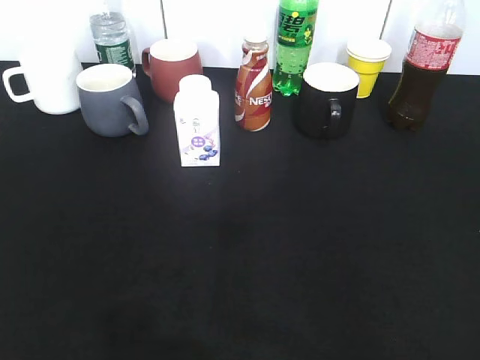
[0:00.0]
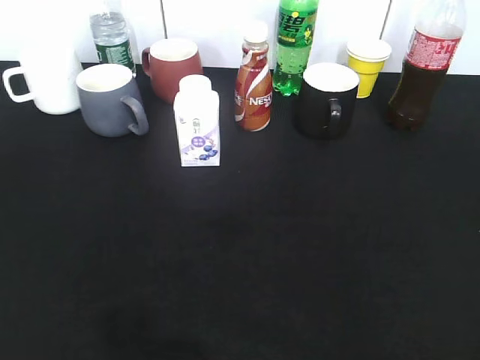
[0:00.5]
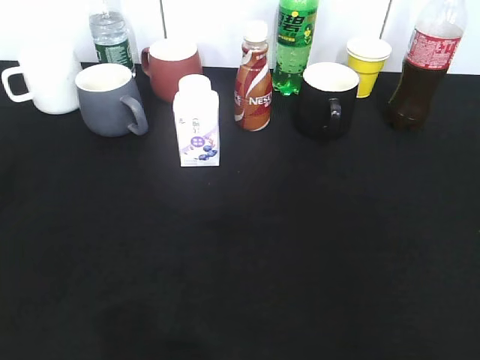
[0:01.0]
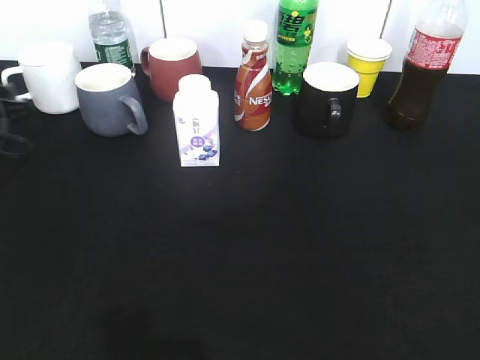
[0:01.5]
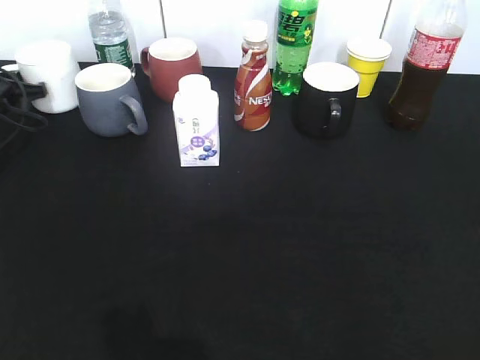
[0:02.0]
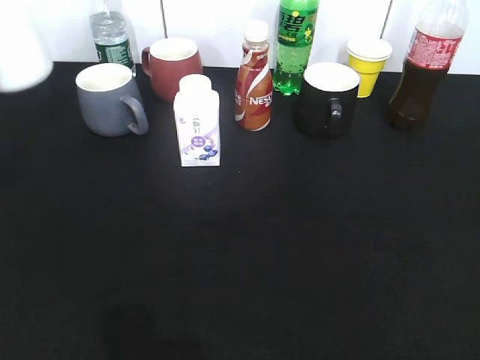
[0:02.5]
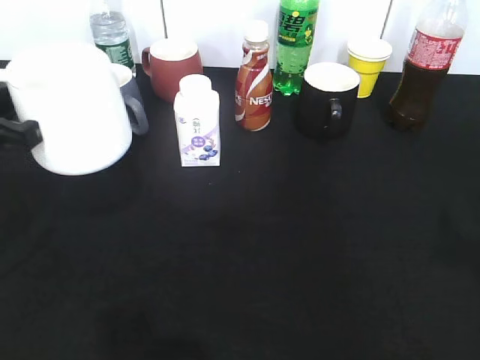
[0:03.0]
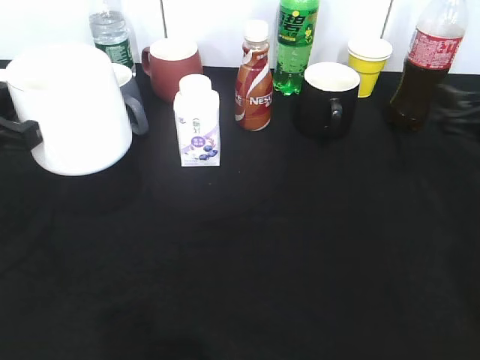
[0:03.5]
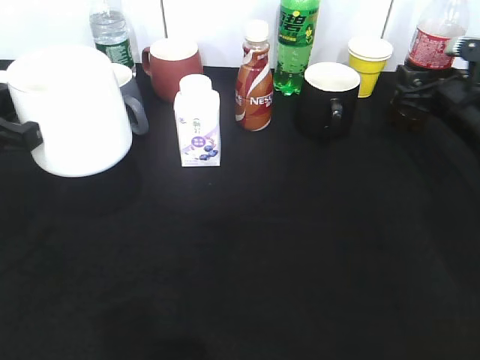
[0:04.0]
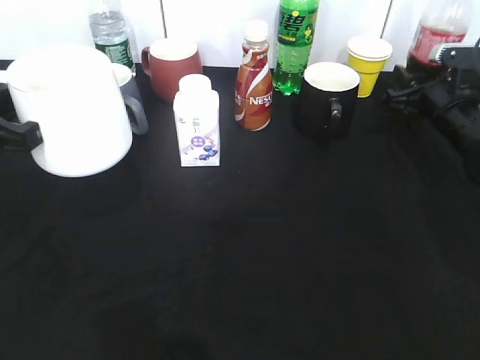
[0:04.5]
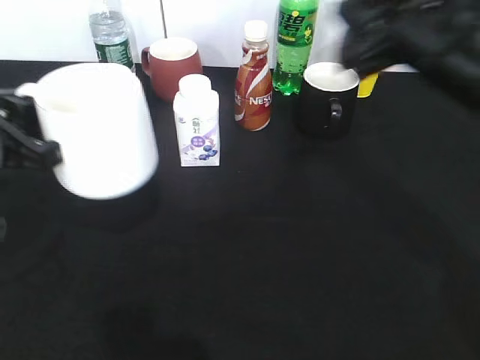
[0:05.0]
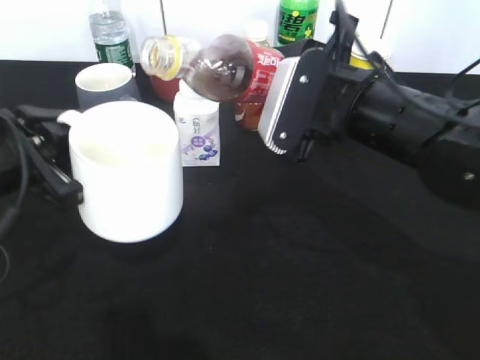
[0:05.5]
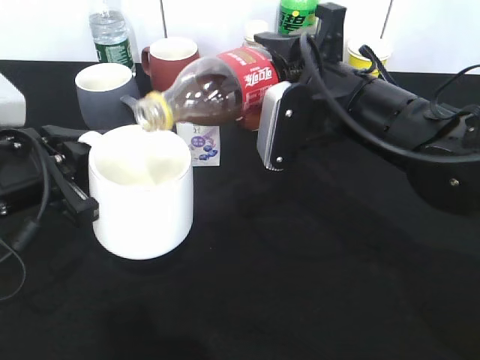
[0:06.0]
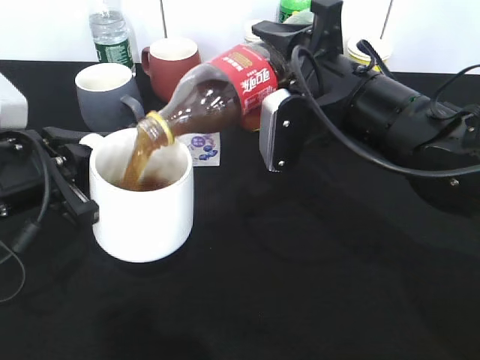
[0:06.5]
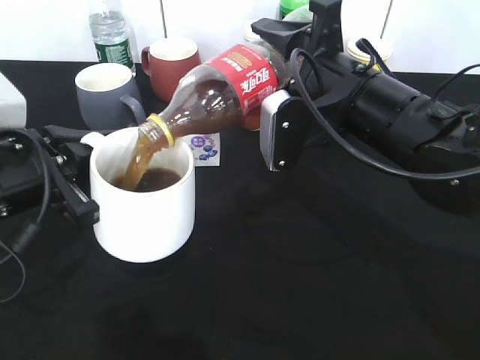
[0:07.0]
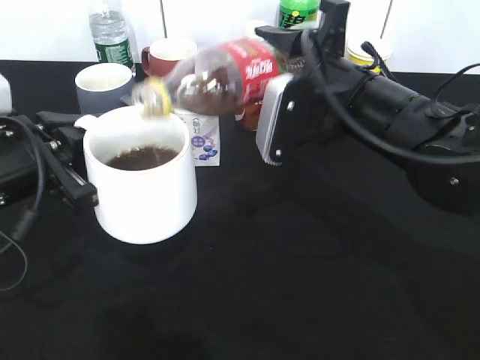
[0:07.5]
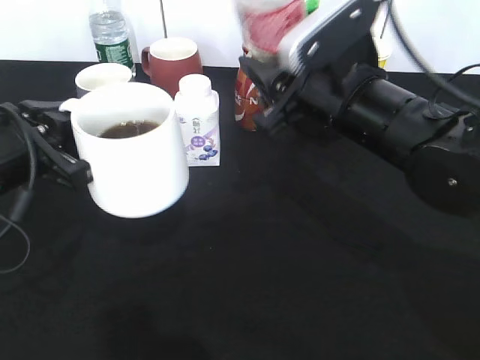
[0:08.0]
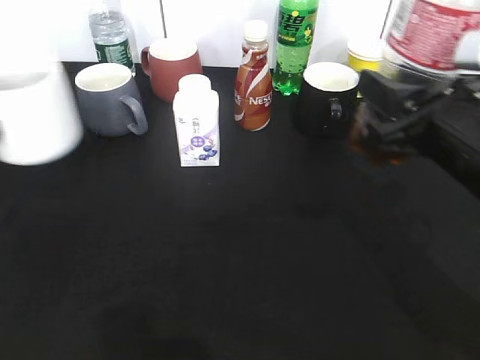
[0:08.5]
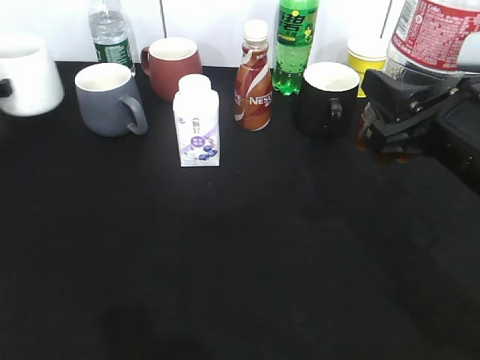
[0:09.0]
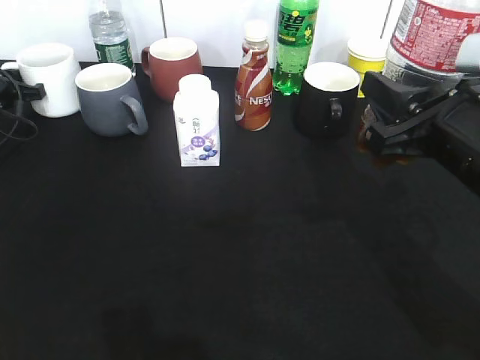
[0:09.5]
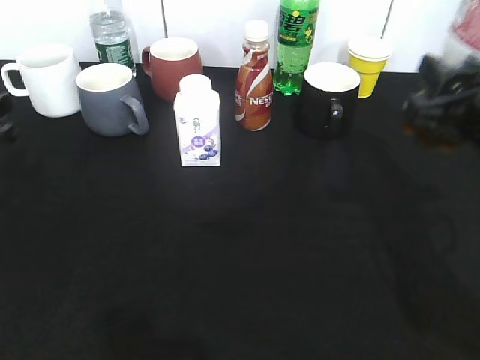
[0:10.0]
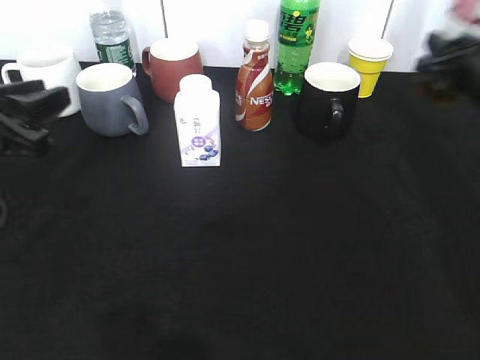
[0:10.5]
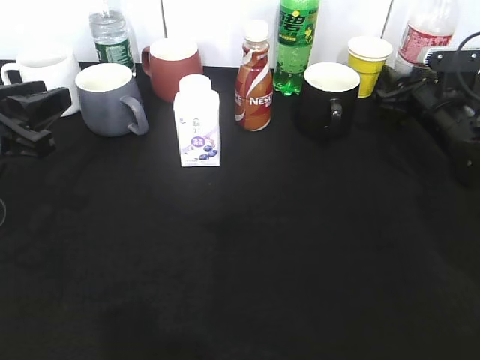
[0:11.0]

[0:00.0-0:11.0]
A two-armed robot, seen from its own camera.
Step, 0:02.5 to 0:03.0: Lift the white cup with left gripper.
Step, 0:03.5 to 0:04.0: Grasp the bottle with cola with right gripper.
Step, 0:04.5 to 0:07.5: Pour the cola from bottle to cup with right gripper.
Step, 0:08.0 to 0:10.0: Place the white cup on the table with left gripper.
0:00.0 to 0:02.0: The left gripper moves forward, approximately 50 cm, and closes.
0:02.0 to 0:03.5: The right gripper heads forward, covering approximately 30 cm, and opens its fingers. Meanwhile the left gripper is displaced backward, upward and to the right by about 30 cm.
0:03.5 to 0:05.5: The right gripper shifts approximately 20 cm to the left, and closes.
0:07.5 to 0:09.0: The right gripper goes roughly 10 cm to the right and backward. The left gripper heads forward and to the left, covering about 25 cm.
0:09.0 to 0:11.0: The right gripper travels forward and downward by roughly 25 cm, while the left gripper is displaced backward and to the right by about 20 cm, and opens up.

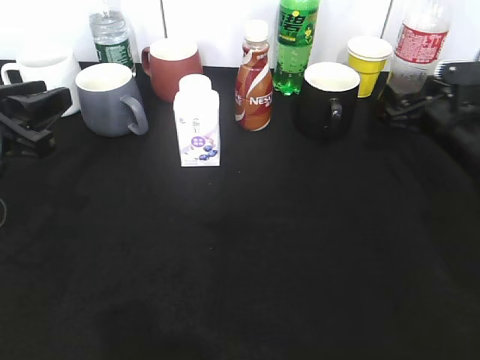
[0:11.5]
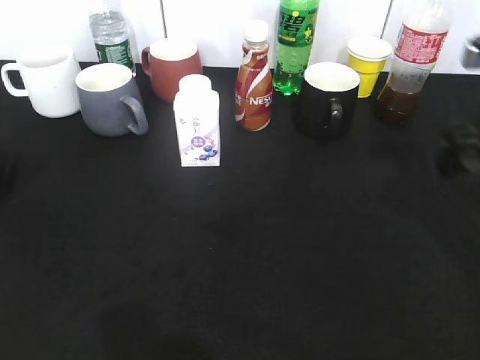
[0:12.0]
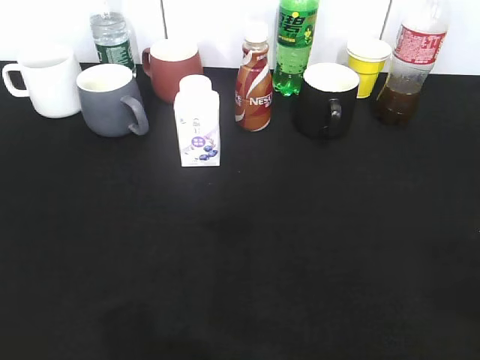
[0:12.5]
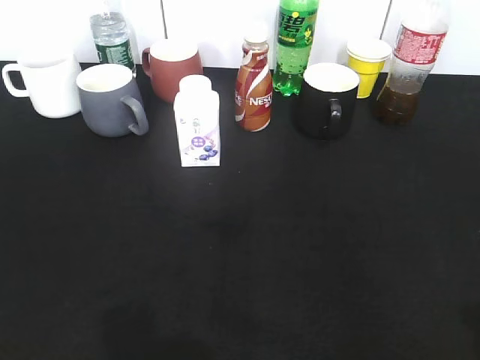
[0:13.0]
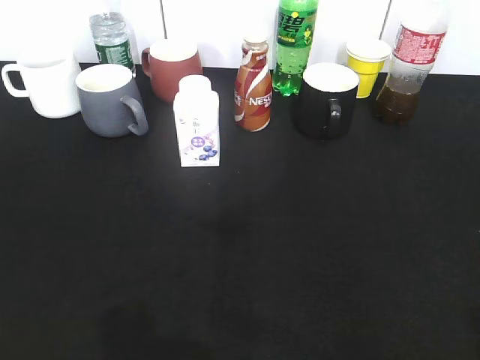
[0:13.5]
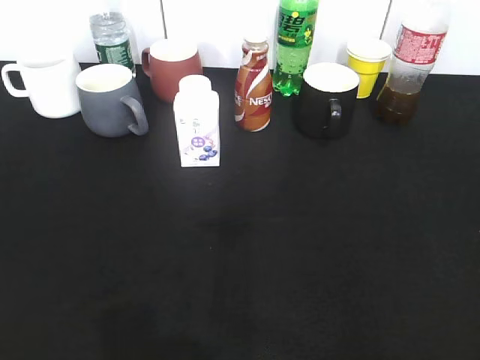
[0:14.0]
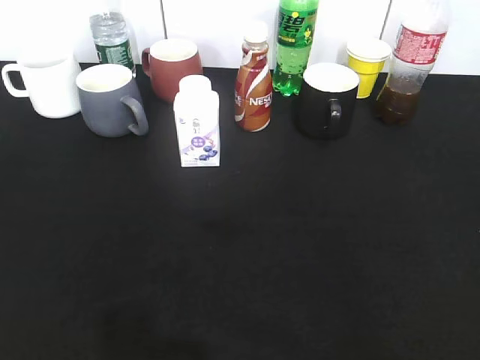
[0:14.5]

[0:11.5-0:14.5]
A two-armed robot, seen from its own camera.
0:11.5 to 0:13.0: The right gripper travels backward and upward by roughly 40 cm, while the left gripper goes about 20 cm backward.

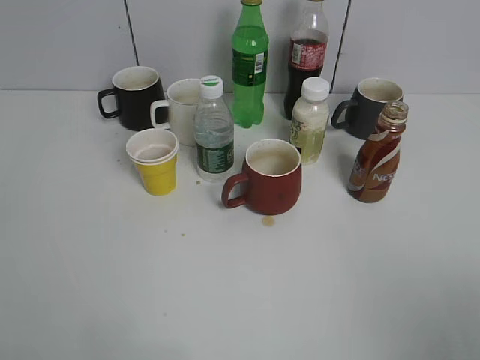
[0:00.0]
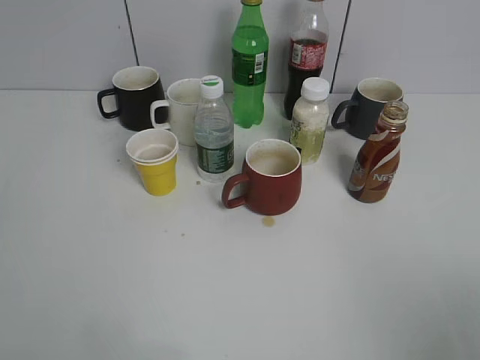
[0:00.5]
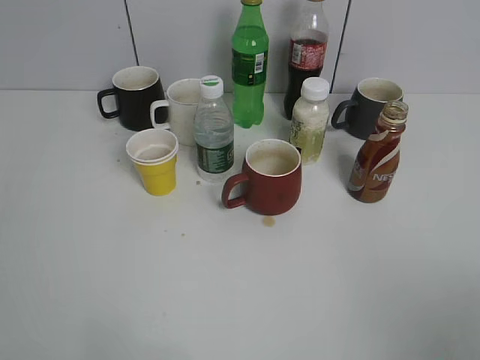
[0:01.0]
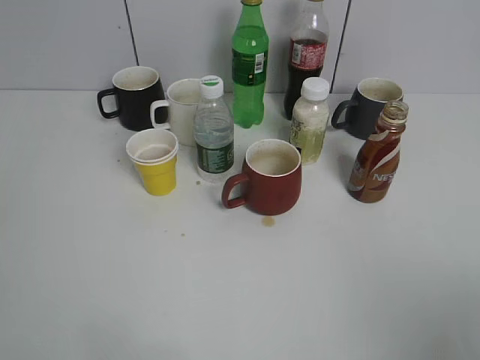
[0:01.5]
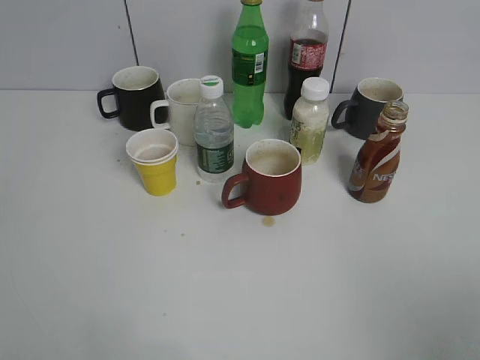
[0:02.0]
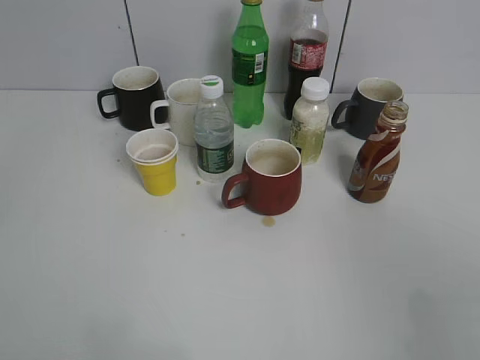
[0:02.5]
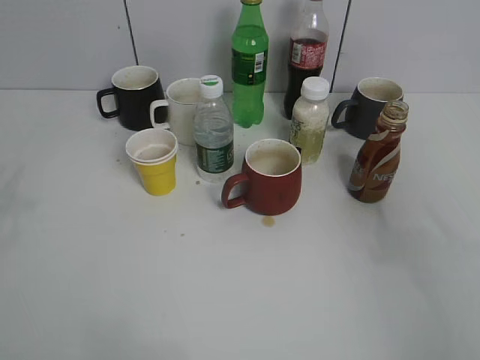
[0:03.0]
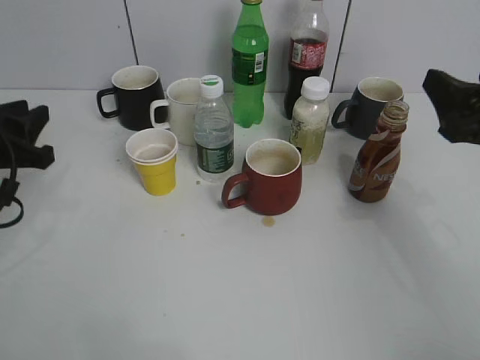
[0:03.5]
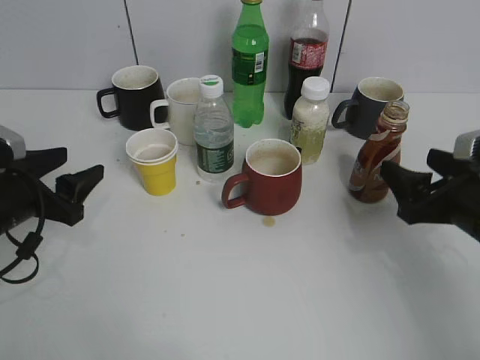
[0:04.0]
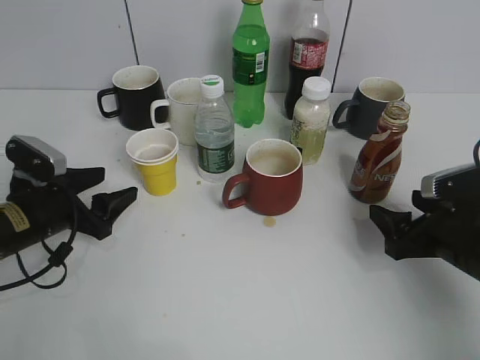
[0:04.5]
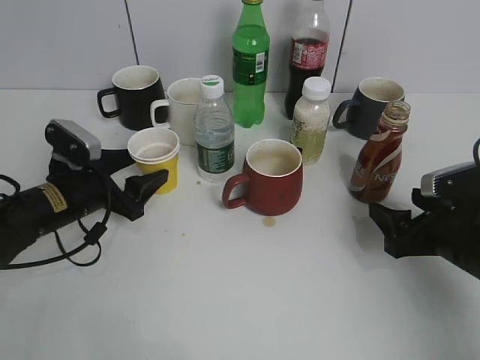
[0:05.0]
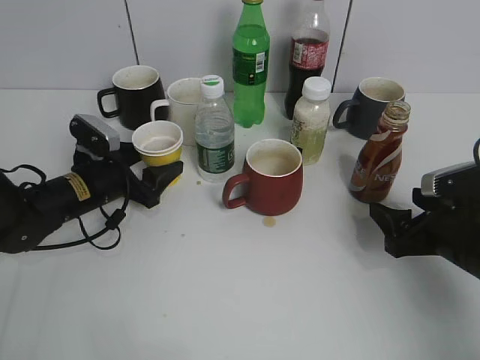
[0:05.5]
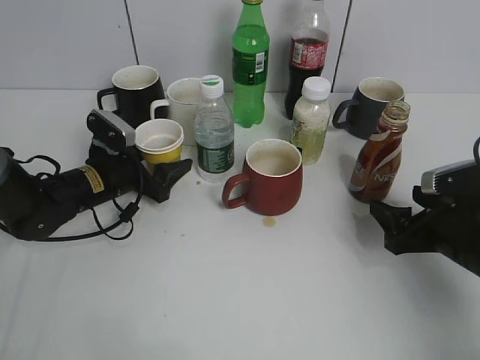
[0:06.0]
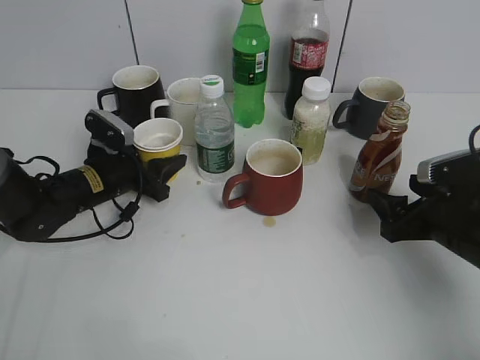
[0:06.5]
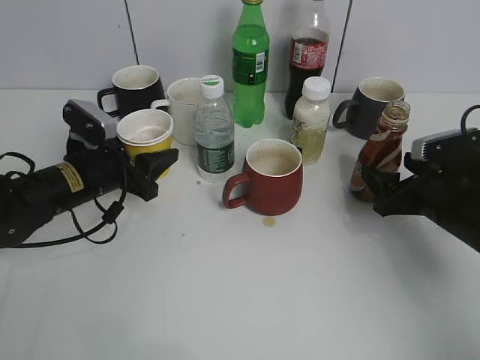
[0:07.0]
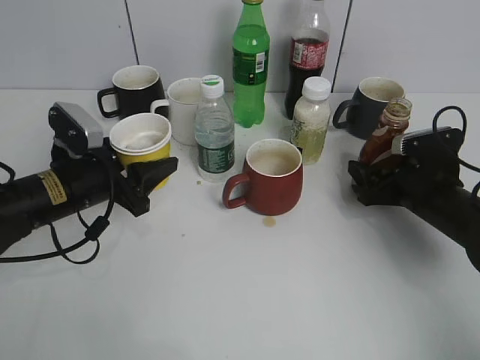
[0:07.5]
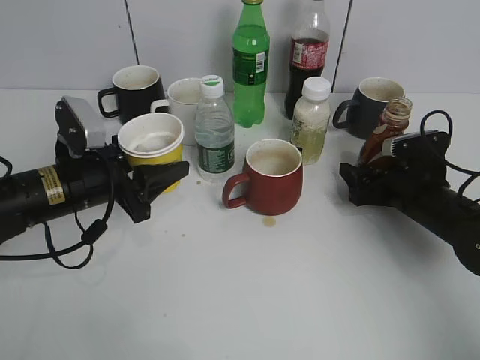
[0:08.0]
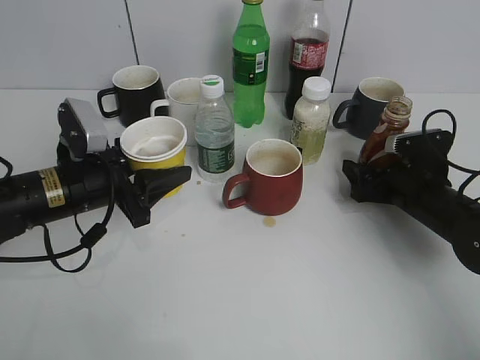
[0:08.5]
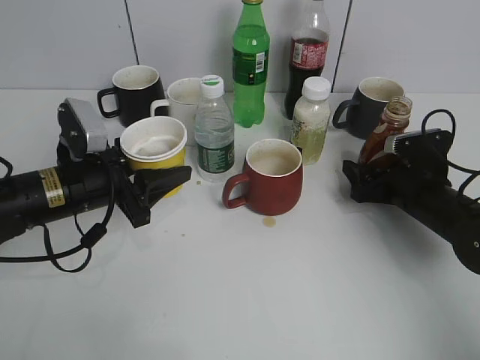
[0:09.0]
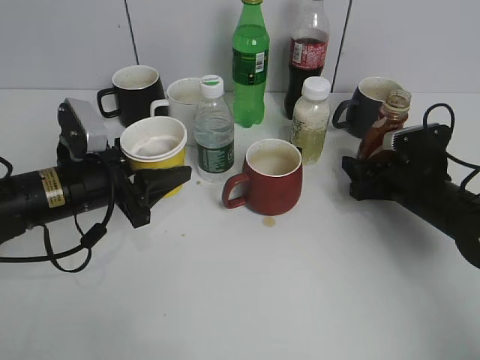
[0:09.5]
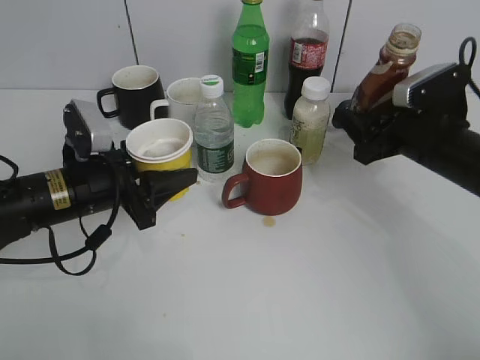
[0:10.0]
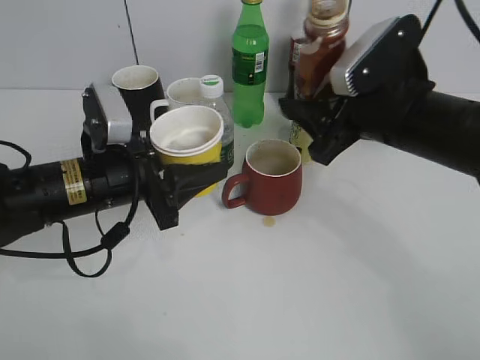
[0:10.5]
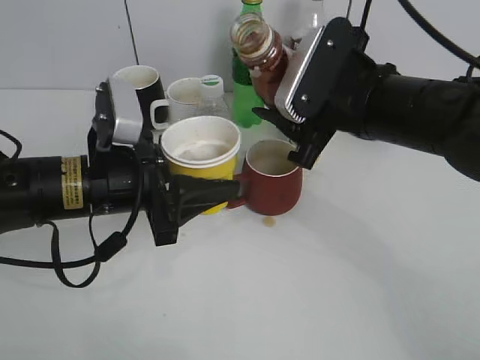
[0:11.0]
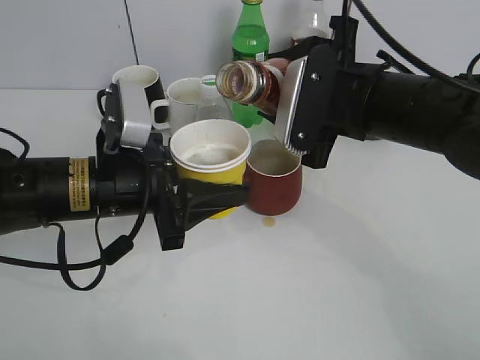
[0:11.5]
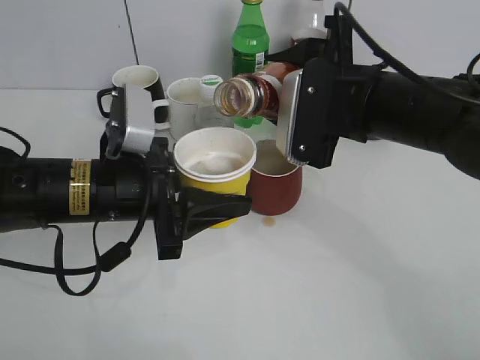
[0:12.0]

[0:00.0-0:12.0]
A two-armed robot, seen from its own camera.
Step, 0:02.5 to 0:06.0: Grasp the yellow paper cup with left gripper.
Step, 0:07.0 to 0:09.0: Grasp the bottle with coffee with right gripper.
0:02.0 to 0:04.0: Both grippers move forward and downward, some 30 cm. The left gripper opens up.
0:04.0 to 0:06.0: The left gripper heads forward, to the right and downward, covering approximately 15 cm, while the right gripper travels downward by about 5 cm.
0:06.0 to 0:08.0: The left gripper shifts about 10 cm backward and upward, and closes its fingers. The right gripper goes roughly 10 cm forward.
0:08.0 to 0:10.0: The right gripper travels upward by roughly 10 cm, and closes up.
0:10.0 to 0:12.0: The left gripper heads to the right and upward, covering about 10 cm. The right gripper is displaced to the left and upward by roughly 15 cm.
